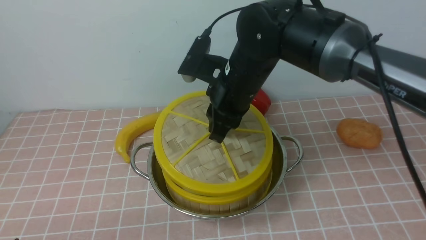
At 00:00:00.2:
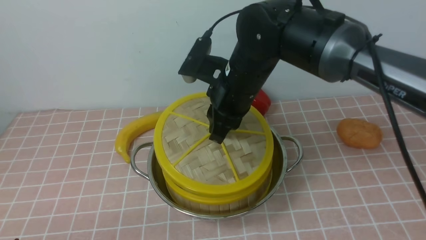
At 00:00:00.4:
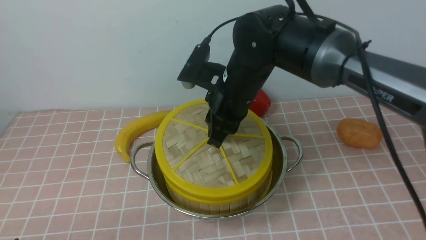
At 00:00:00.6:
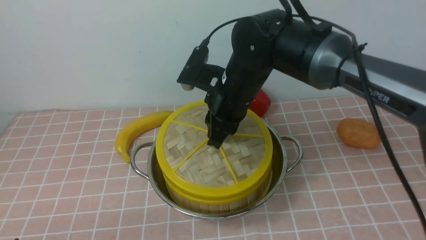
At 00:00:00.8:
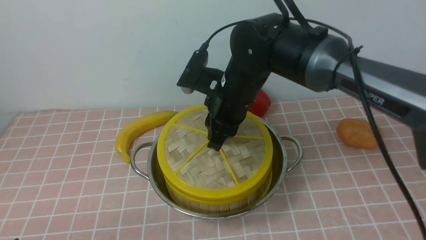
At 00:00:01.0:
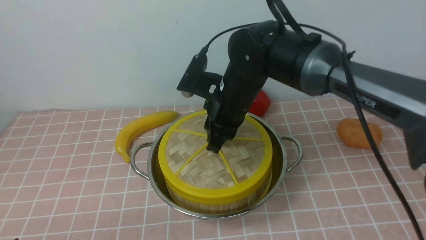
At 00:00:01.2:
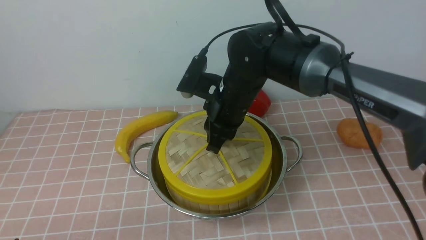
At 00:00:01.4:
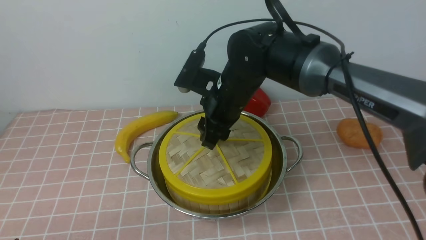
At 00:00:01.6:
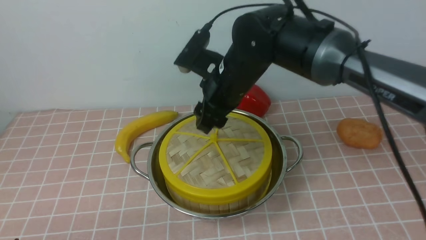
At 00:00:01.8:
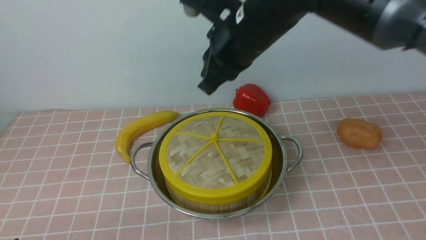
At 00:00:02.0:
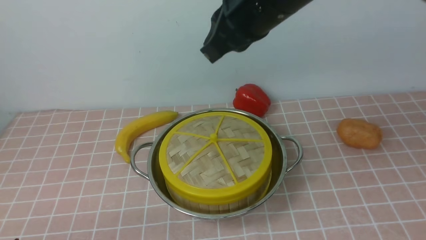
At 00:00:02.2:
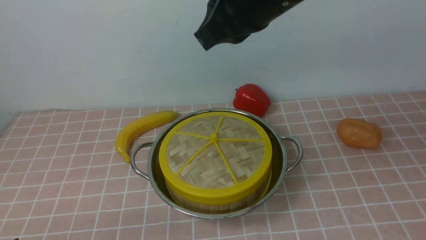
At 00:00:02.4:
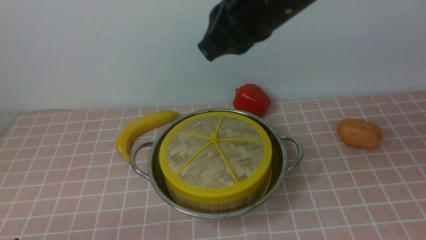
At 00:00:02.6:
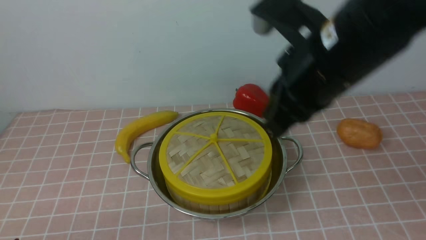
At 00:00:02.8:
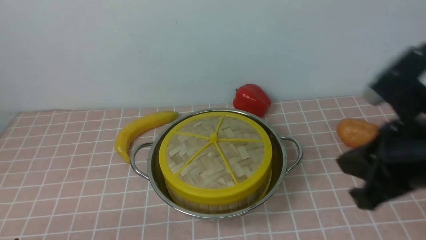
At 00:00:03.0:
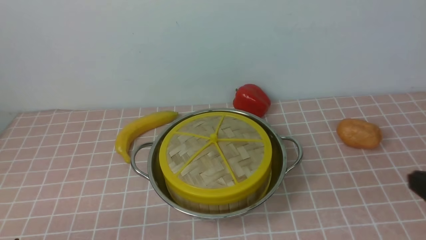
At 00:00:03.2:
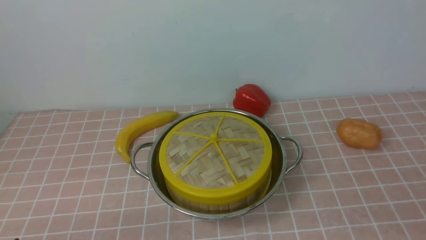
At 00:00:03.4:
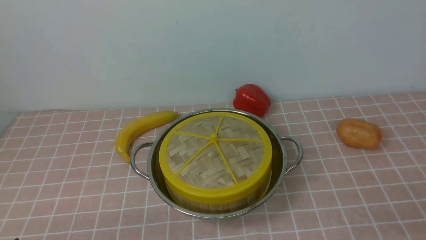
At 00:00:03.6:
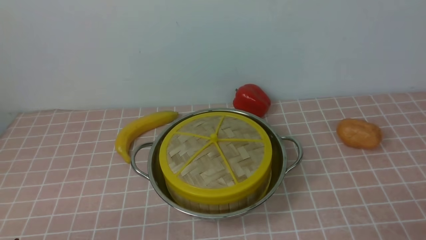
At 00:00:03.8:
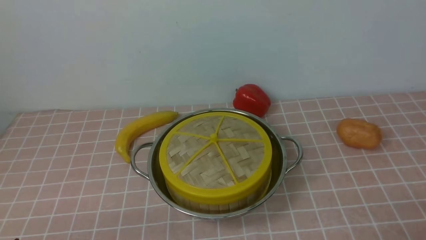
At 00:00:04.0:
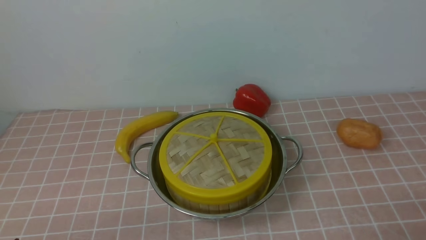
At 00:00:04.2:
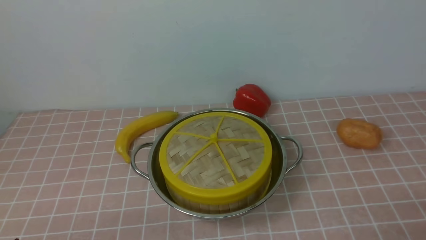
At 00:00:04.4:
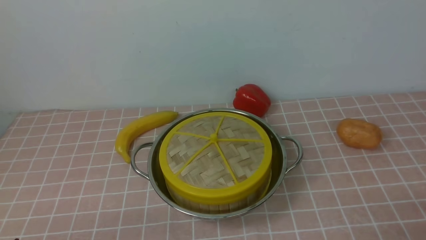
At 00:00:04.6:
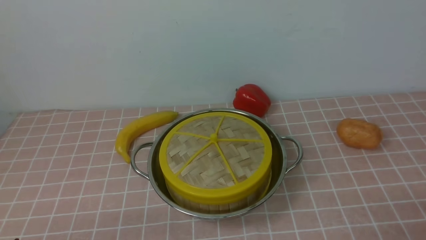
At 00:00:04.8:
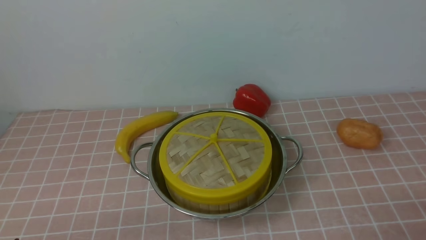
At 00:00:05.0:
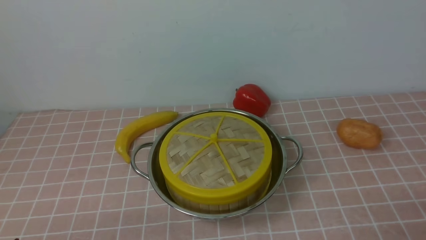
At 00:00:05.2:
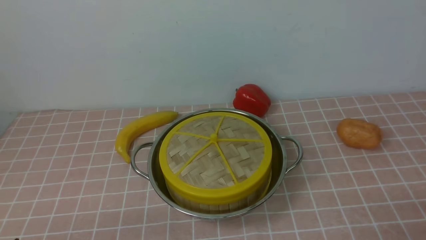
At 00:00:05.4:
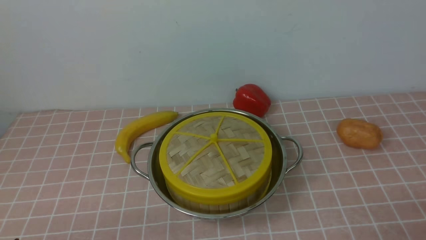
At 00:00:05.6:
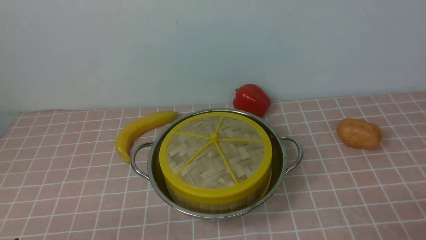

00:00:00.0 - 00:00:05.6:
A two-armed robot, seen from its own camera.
Task of the whole recording: place the steamer in the pot on the pink tablecloth, and put the lid on the steamer.
00:00:00.0 - 00:00:01.4: The right gripper opens.
00:00:01.4 - 00:00:02.8: The right gripper goes about 30 cm to the right and backward, and closes.
00:00:02.8 - 00:00:04.2: The right gripper shifts some 20 cm downward, backward and to the right, and opens.

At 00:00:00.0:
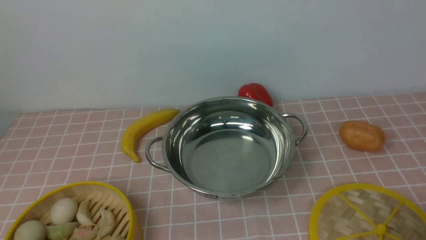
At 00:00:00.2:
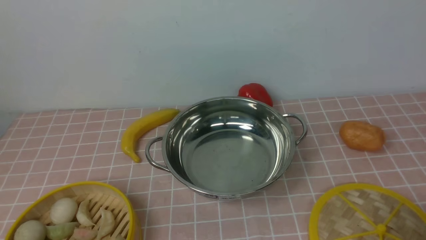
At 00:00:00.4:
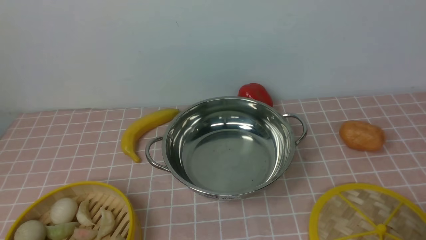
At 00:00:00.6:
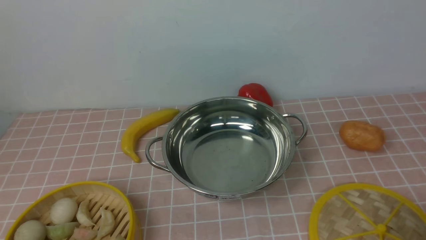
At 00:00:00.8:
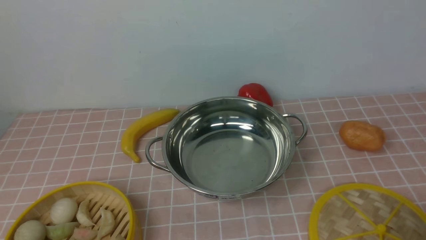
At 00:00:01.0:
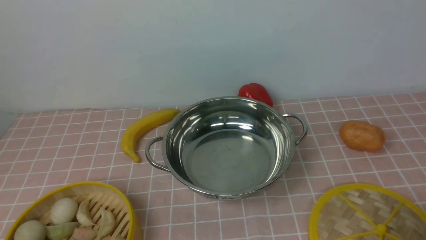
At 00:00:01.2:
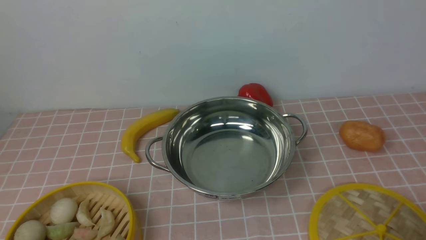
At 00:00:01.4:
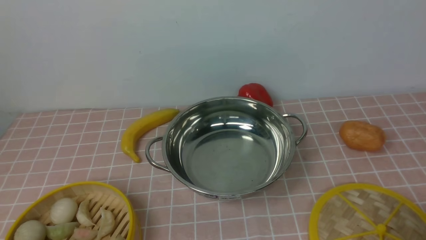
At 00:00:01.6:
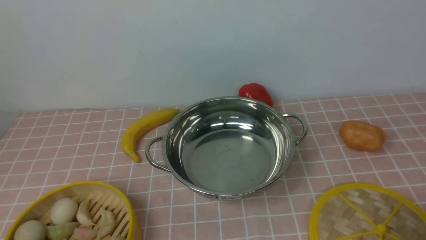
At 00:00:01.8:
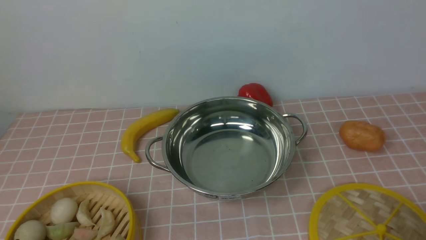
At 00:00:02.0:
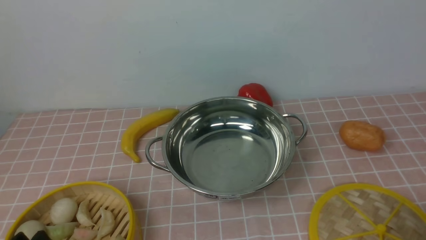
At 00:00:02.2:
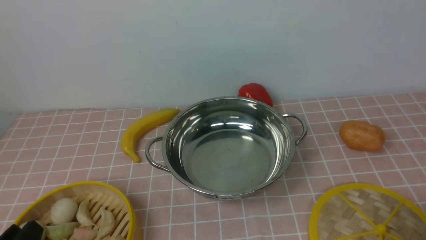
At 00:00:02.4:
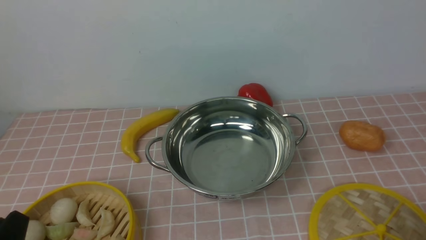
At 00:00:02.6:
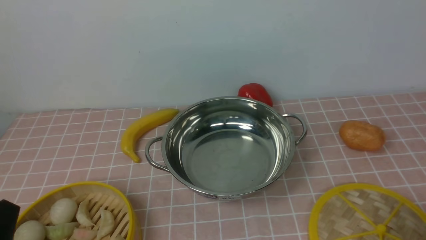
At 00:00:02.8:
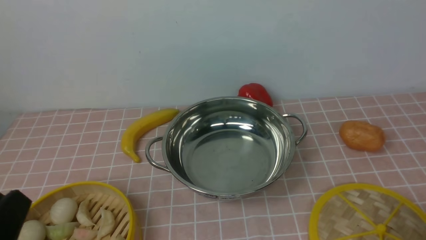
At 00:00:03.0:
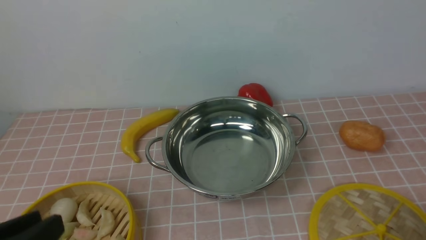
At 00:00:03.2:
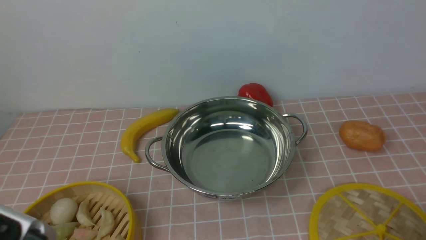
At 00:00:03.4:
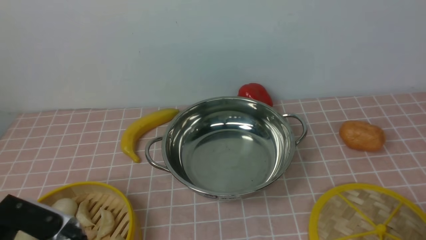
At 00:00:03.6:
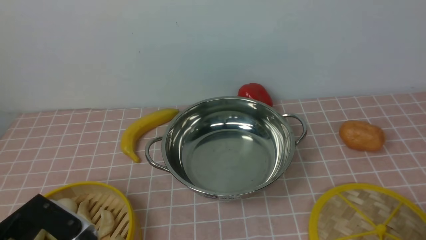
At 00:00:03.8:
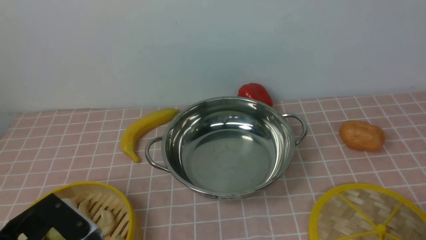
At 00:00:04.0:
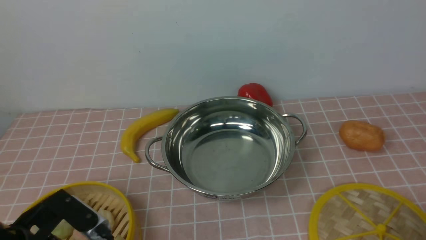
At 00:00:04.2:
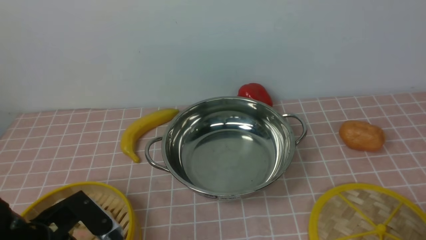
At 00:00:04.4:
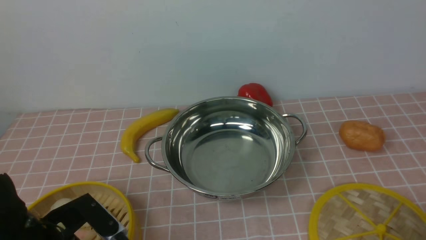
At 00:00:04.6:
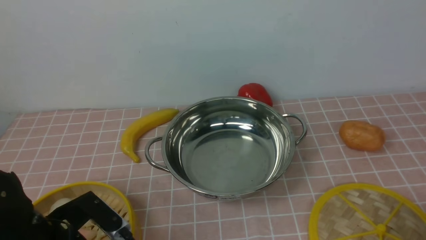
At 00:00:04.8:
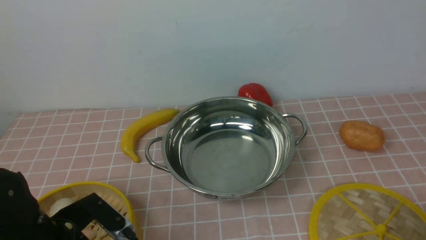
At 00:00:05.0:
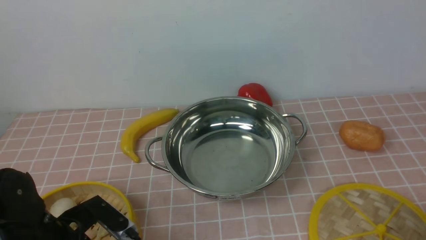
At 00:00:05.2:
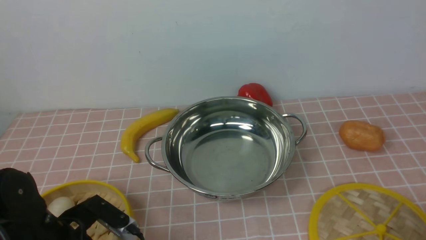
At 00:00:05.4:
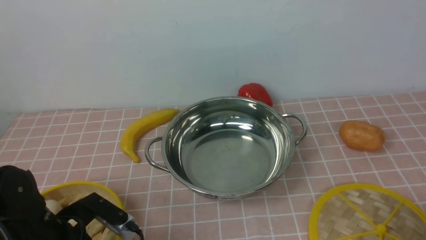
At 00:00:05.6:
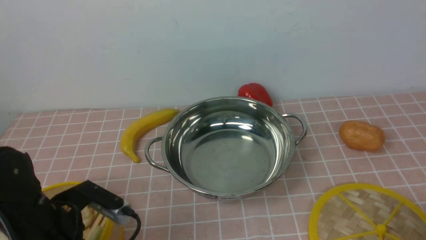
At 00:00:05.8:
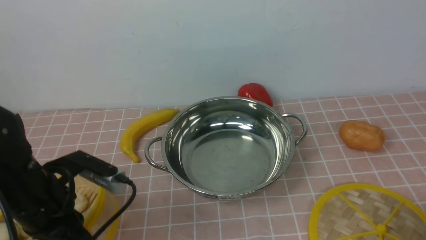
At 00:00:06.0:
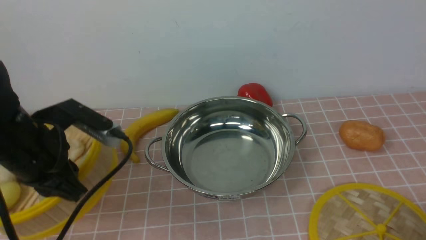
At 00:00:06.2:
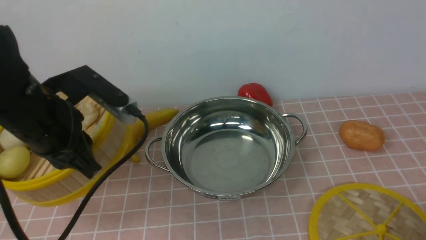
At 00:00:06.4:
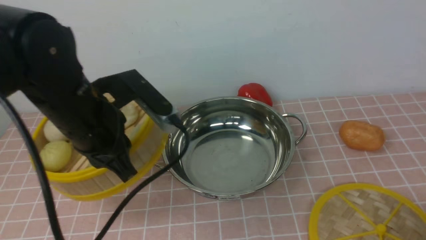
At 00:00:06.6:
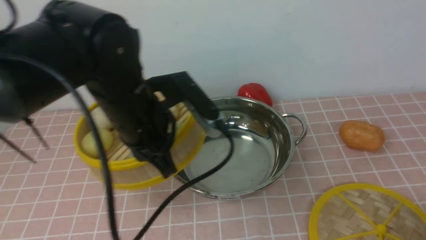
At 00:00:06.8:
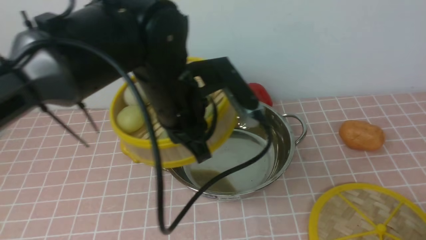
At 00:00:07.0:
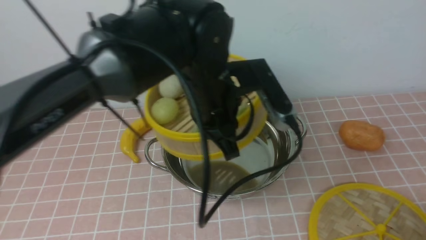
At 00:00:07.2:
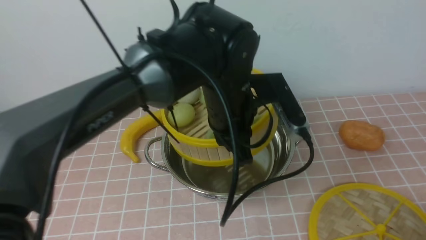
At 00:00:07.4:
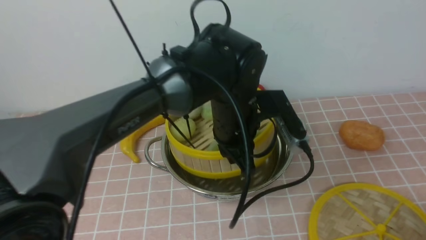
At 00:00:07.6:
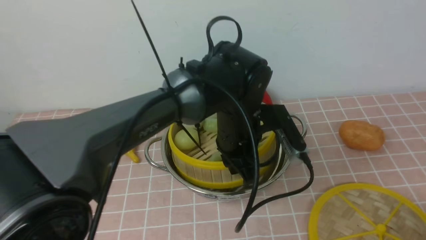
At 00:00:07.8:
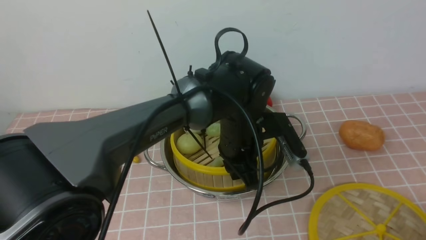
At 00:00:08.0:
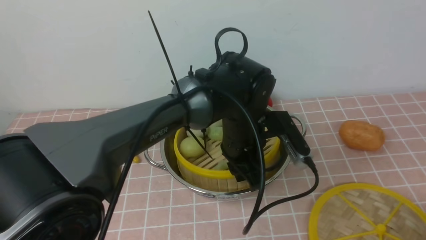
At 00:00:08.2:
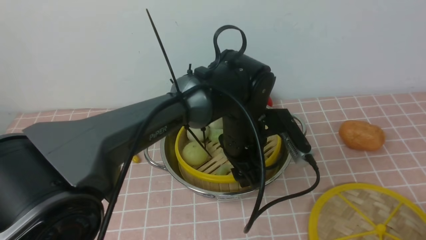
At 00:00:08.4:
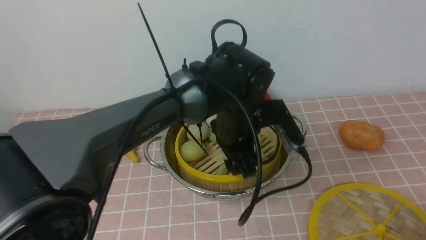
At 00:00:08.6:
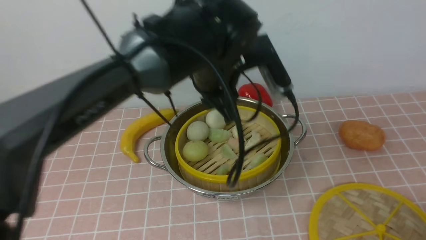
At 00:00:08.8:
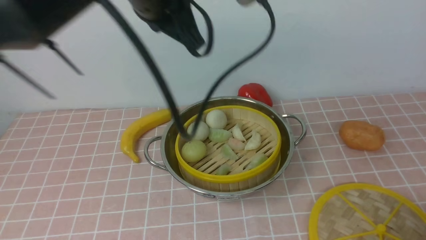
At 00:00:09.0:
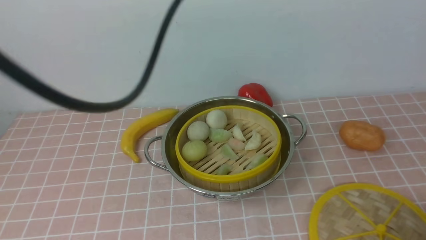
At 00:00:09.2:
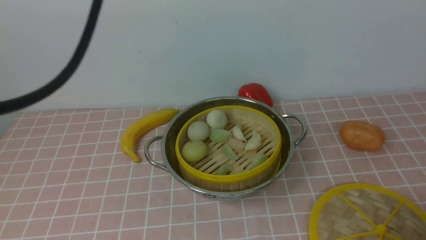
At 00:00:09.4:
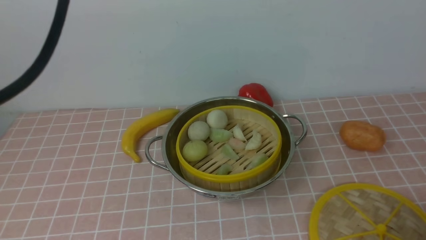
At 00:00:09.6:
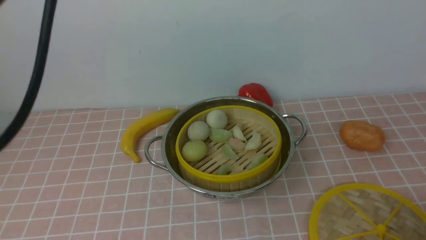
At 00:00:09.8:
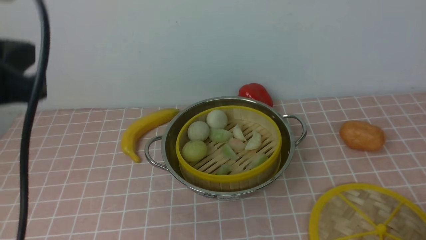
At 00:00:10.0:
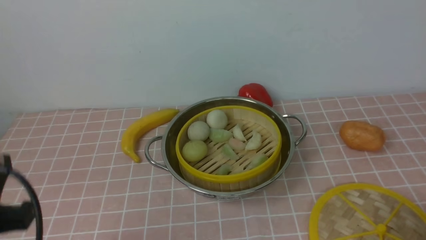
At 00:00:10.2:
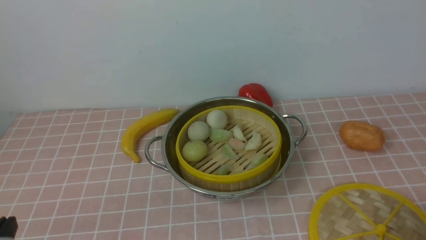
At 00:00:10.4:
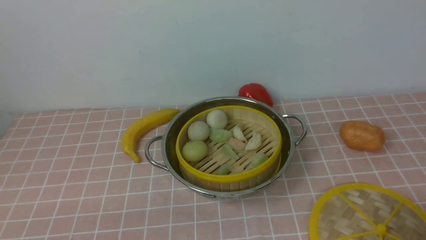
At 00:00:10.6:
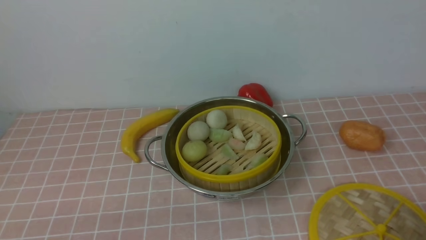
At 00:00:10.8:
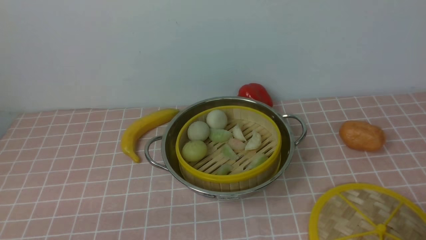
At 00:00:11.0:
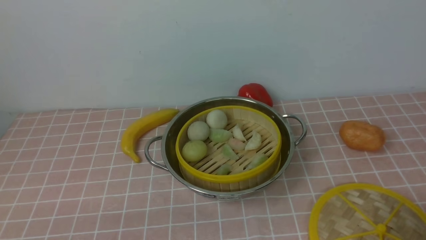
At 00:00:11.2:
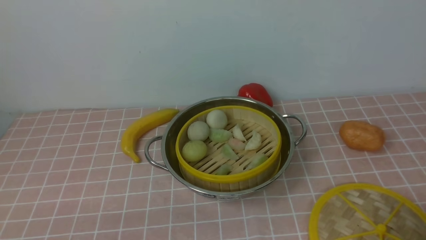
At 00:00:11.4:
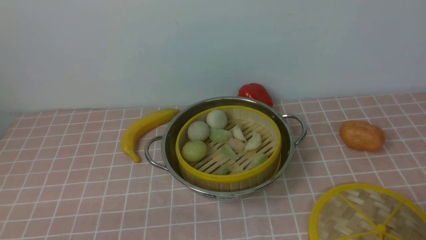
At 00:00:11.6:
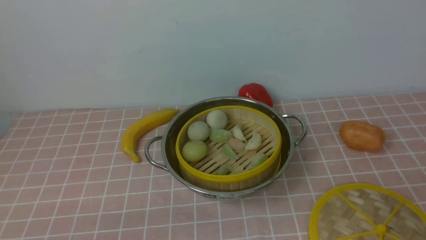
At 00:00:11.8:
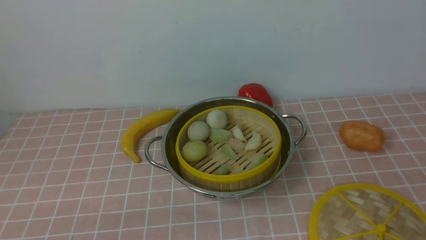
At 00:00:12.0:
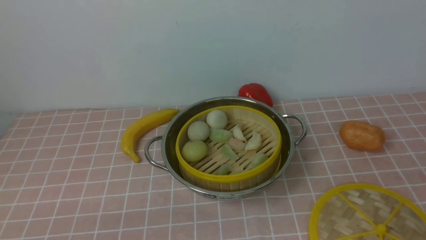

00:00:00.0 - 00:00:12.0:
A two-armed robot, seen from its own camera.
Task of the whole recording: place the steamer in the pot on the pink tablecloth, and put the lid on the steamer.
Step, 00:00:00.0 - 00:00:05.6: use the left arm to lift the steamer closest to it.
Step, 00:00:05.8 - 00:00:08.4: use the left arm to put the steamer into the iron steamer pot in the middle.
00:00:00.0 - 00:00:01.6: Both grippers stay put.
00:00:01.6 - 00:00:03.0: The left gripper shifts roughly 10 cm upward.
00:00:03.0 - 00:00:04.4: The left gripper moves forward and downward, some 15 cm.
00:00:04.4 - 00:00:06.0: The left gripper shifts some 10 cm upward and forward, and closes.
00:00:06.0 - 00:00:07.6: The left gripper shifts roughly 25 cm to the right.
00:00:07.6 - 00:00:09.0: The left gripper travels upward and to the left by some 30 cm, and opens, then closes again.
00:00:09.0 - 00:00:10.4: The left gripper shifts about 40 cm downward, backward and to the left.
